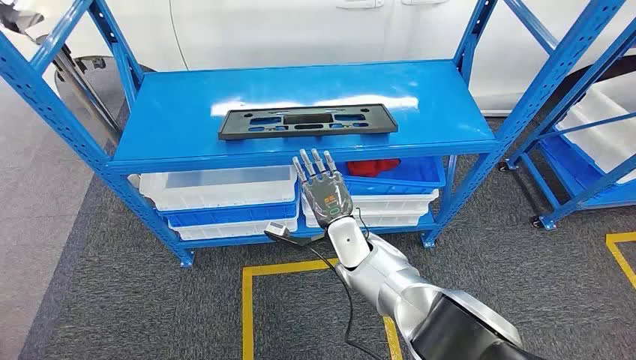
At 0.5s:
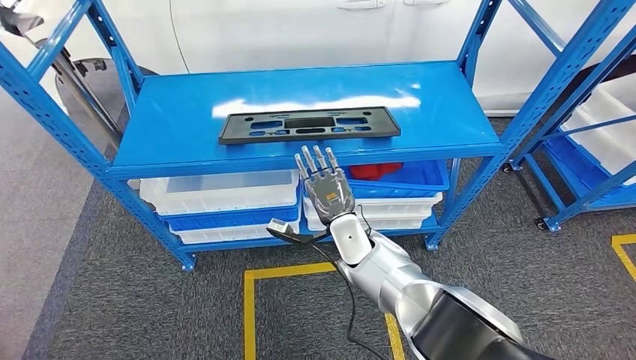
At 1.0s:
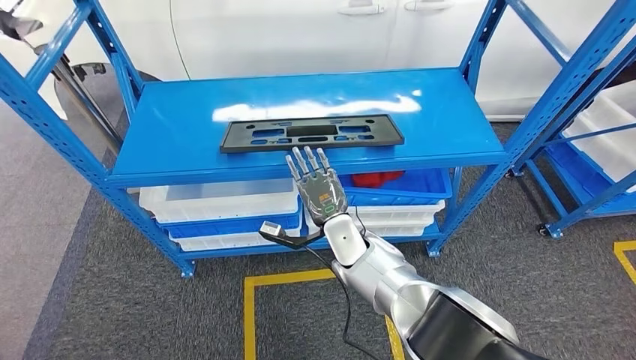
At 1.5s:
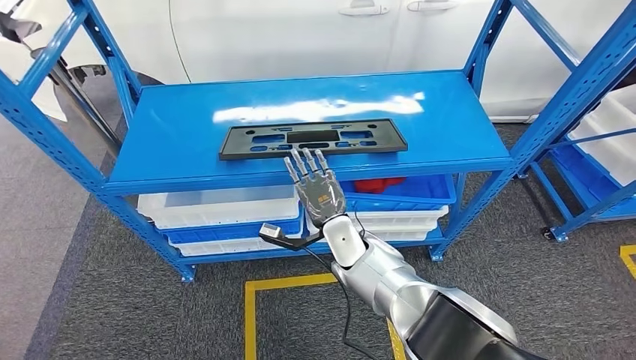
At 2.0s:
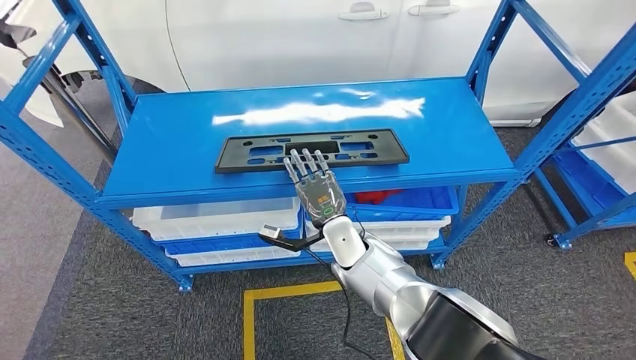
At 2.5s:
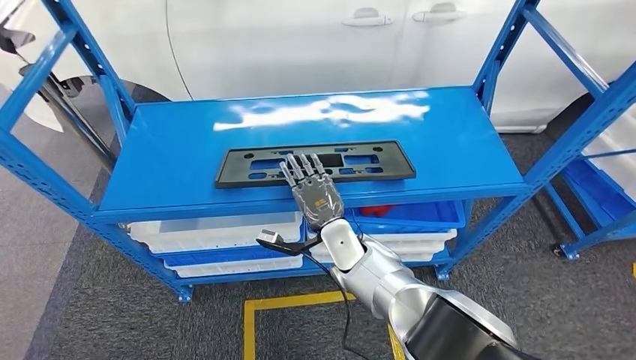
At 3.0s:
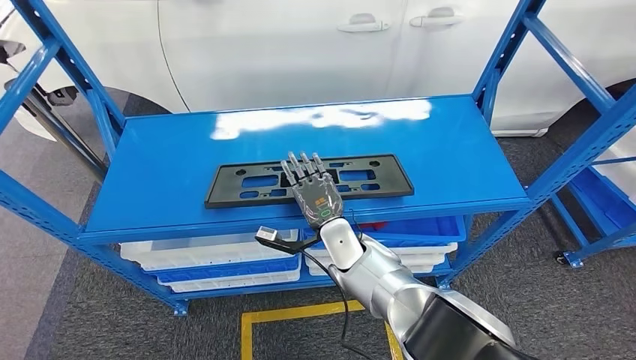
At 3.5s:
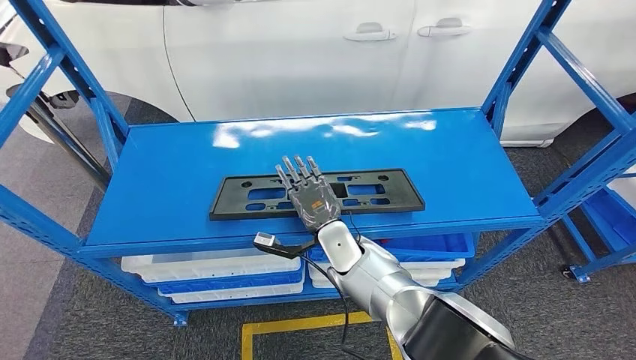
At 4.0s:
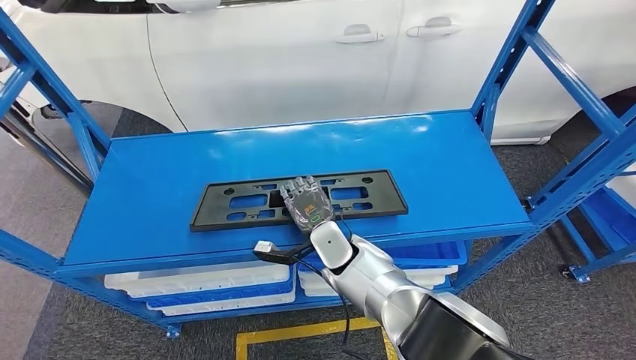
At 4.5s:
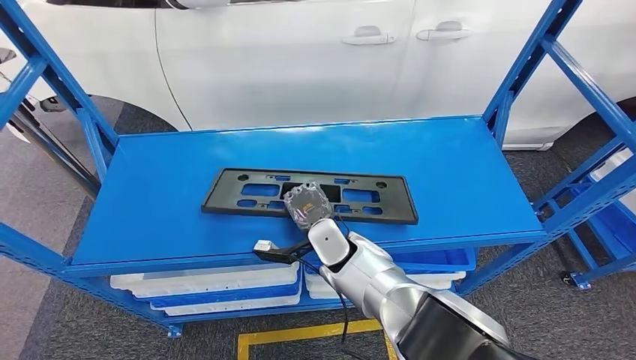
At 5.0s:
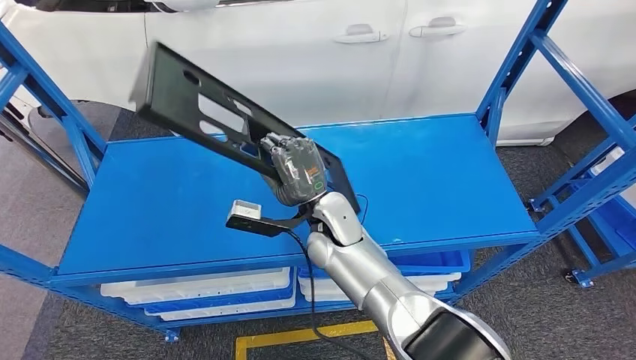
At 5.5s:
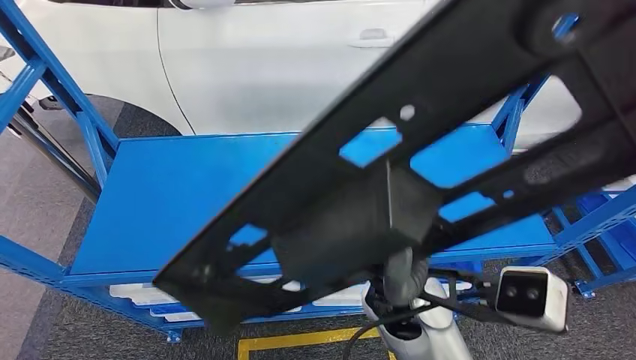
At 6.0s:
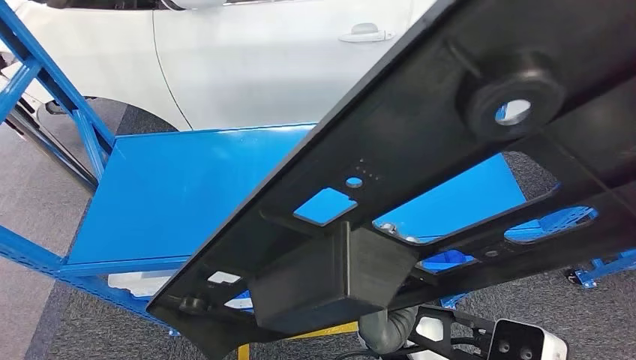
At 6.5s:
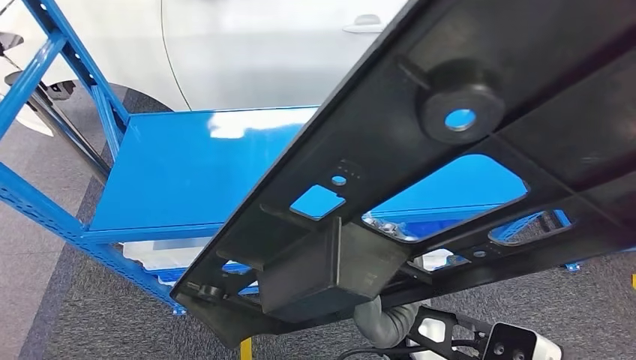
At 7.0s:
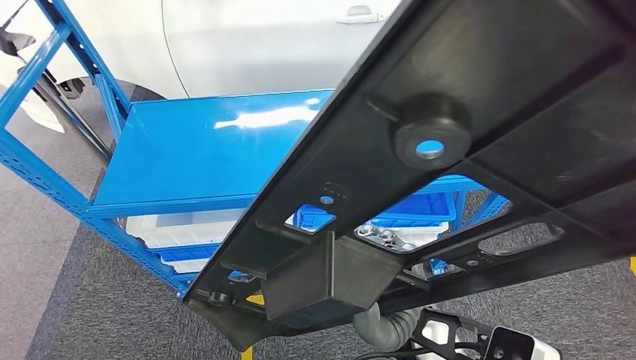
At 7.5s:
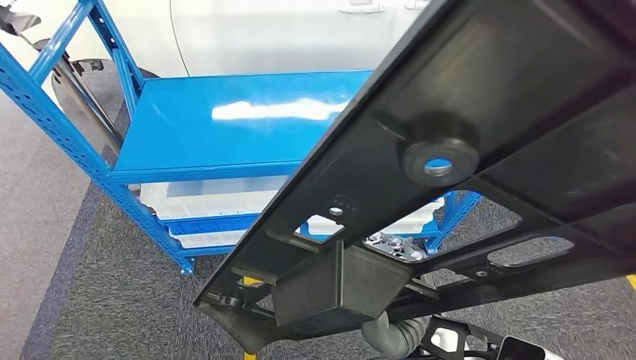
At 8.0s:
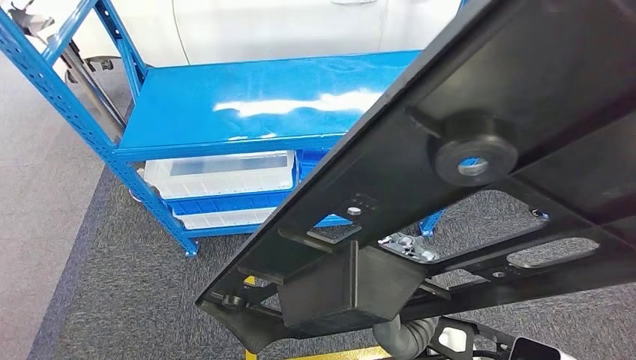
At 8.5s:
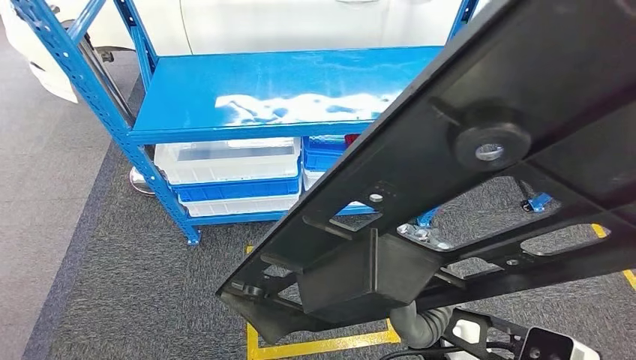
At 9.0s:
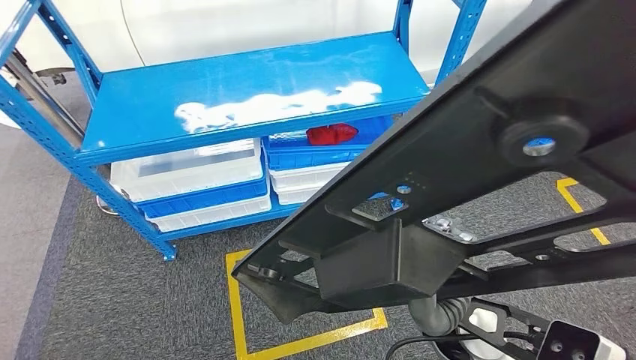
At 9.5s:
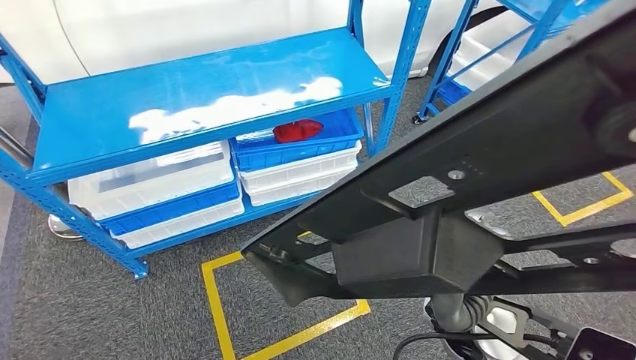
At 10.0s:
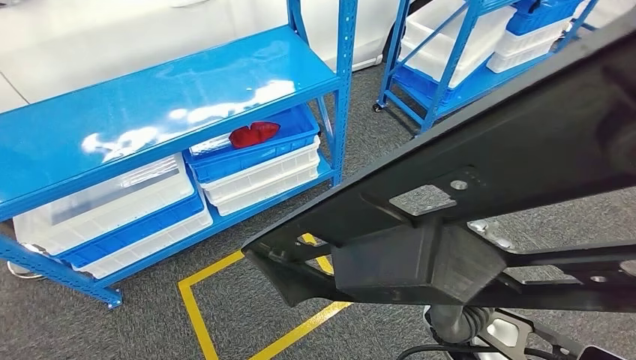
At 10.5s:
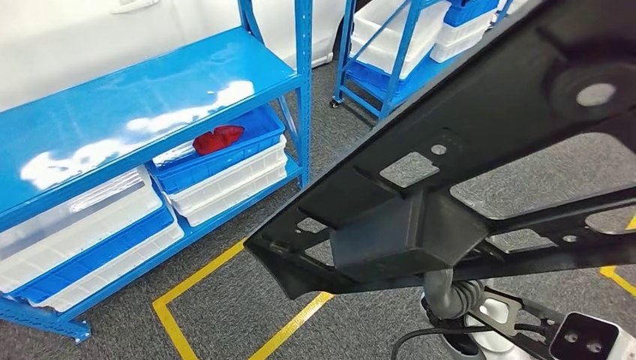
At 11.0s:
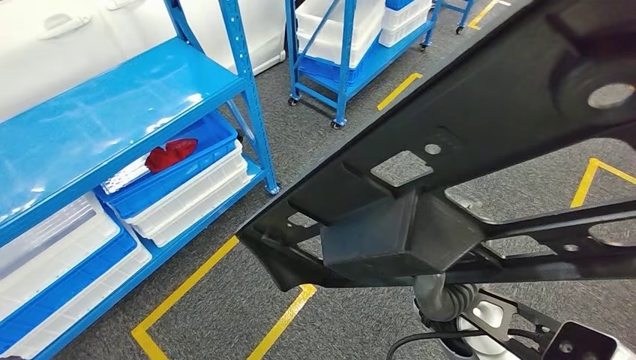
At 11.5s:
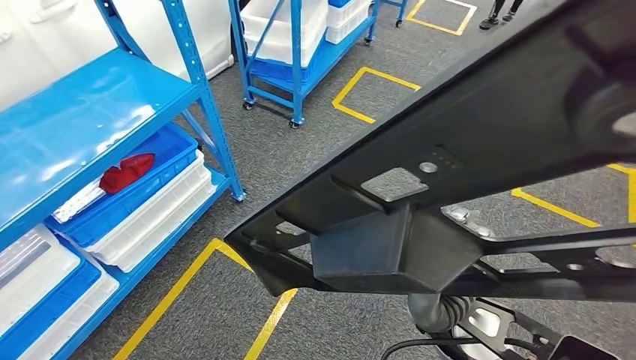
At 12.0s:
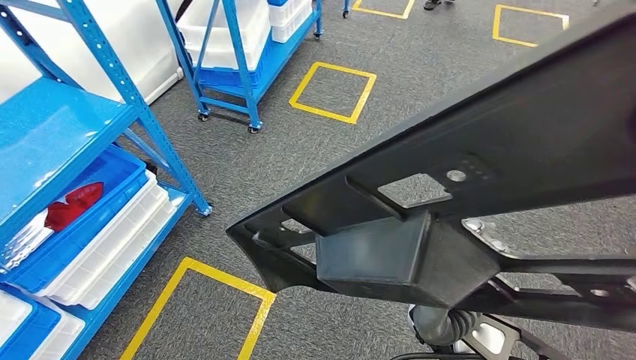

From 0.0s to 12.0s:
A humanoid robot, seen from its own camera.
Step, from 0.0s to 6.5s: Pick up the large material from the shelf.

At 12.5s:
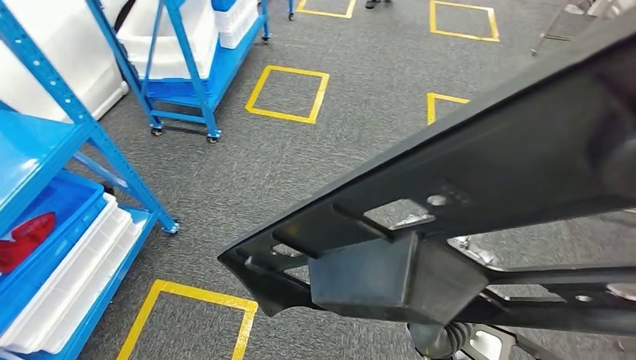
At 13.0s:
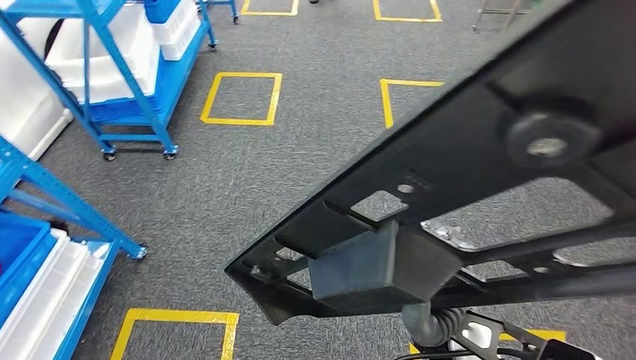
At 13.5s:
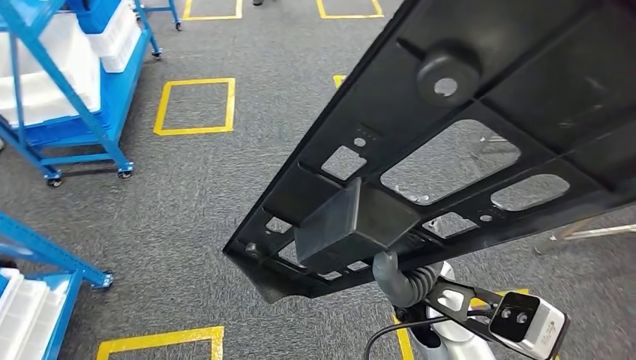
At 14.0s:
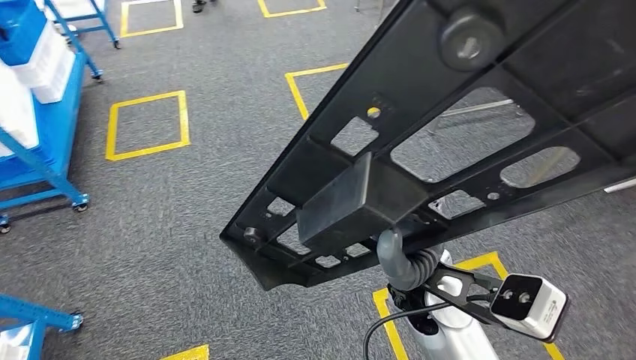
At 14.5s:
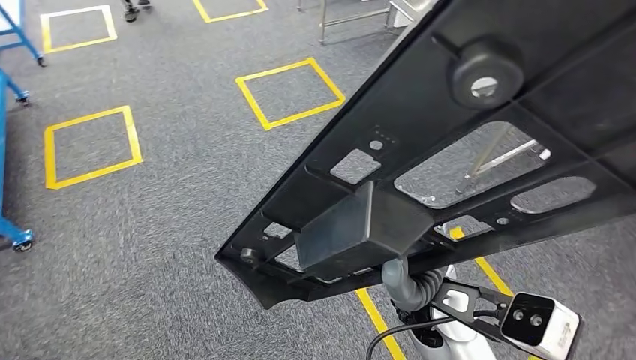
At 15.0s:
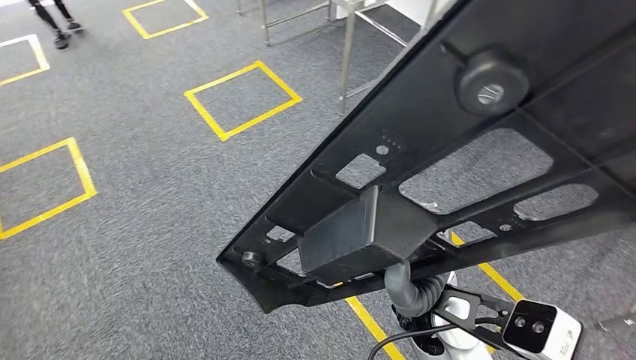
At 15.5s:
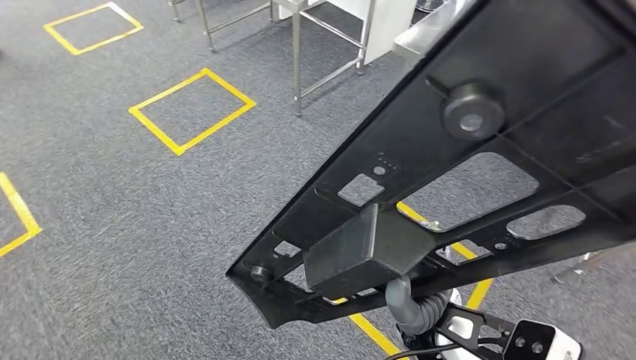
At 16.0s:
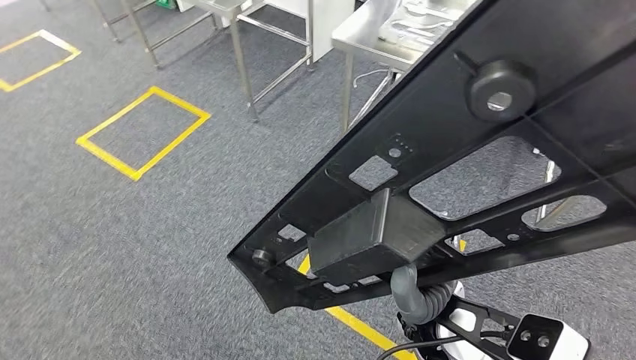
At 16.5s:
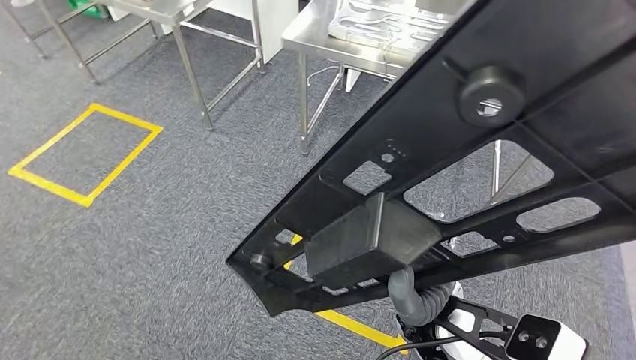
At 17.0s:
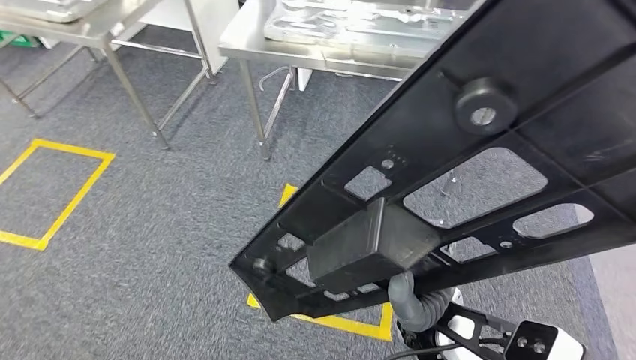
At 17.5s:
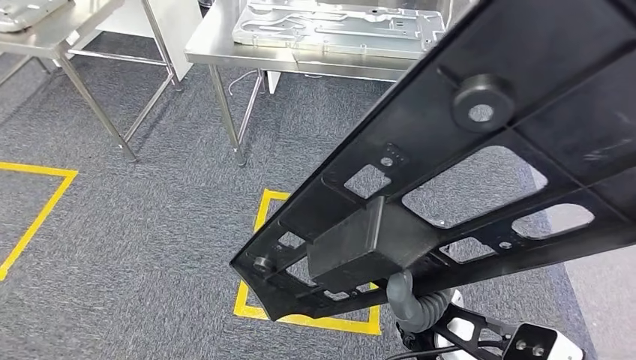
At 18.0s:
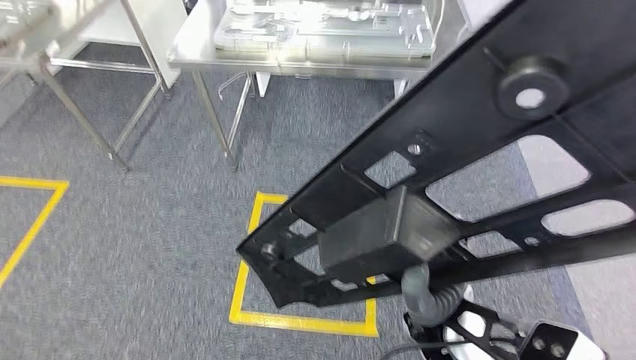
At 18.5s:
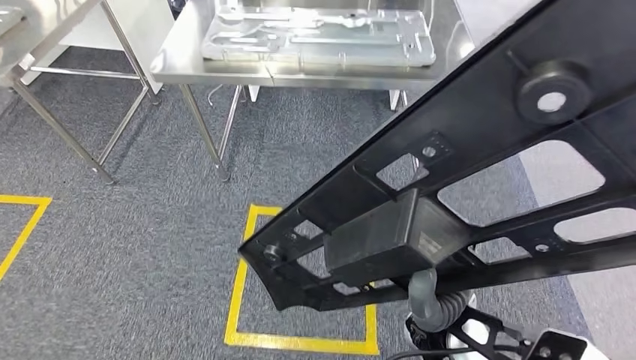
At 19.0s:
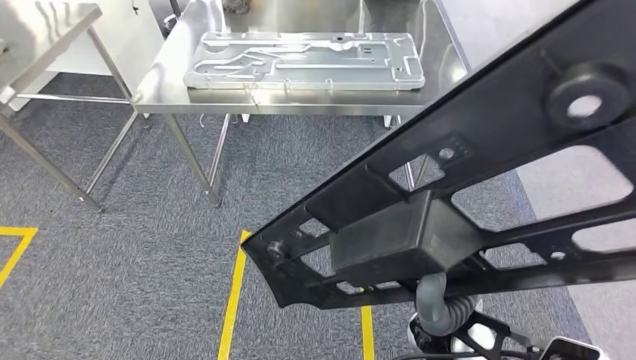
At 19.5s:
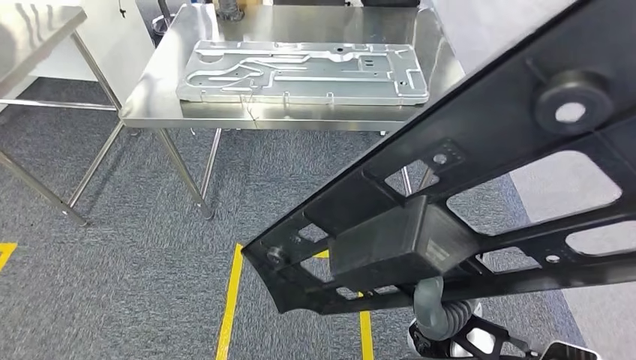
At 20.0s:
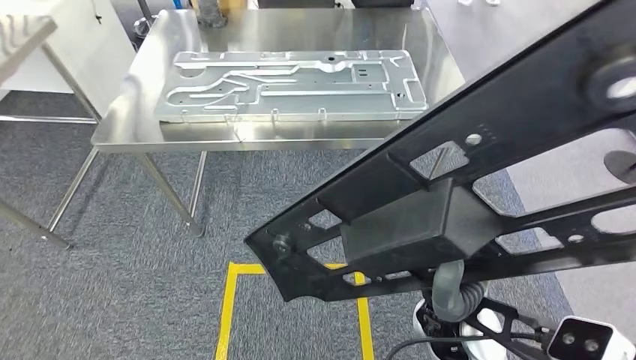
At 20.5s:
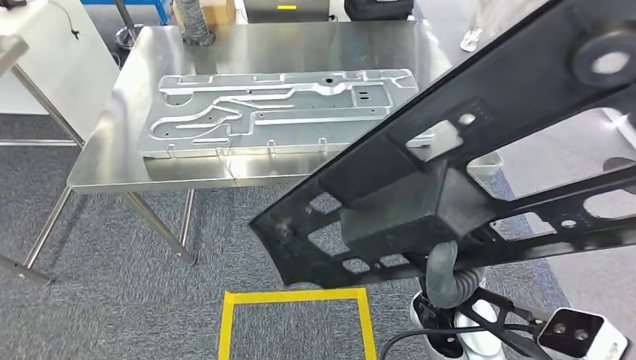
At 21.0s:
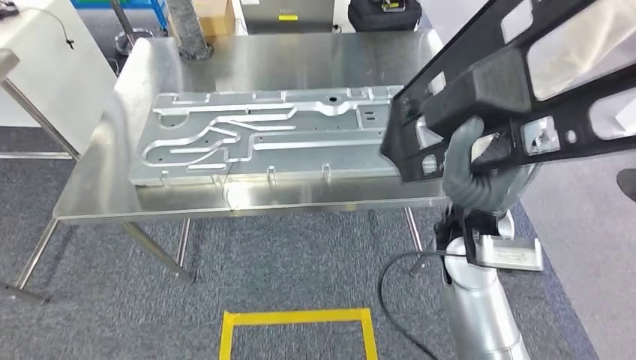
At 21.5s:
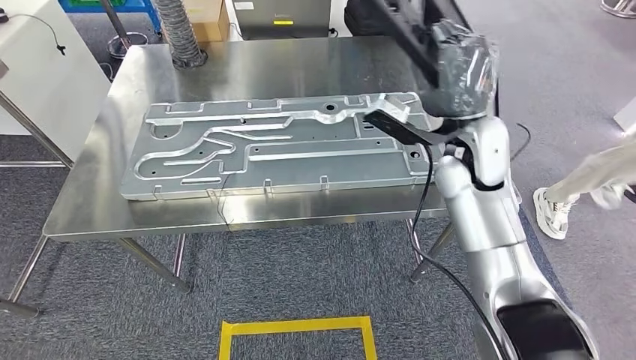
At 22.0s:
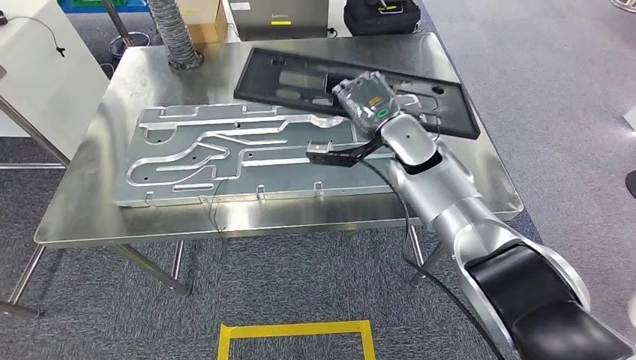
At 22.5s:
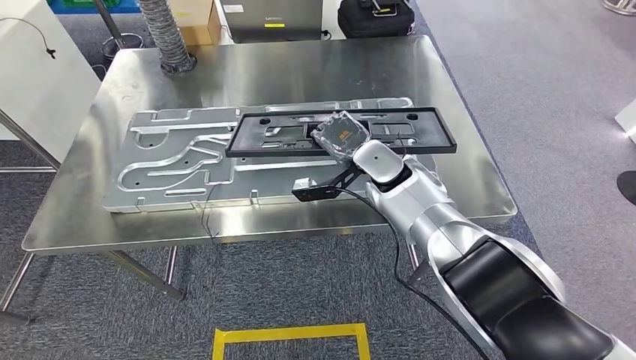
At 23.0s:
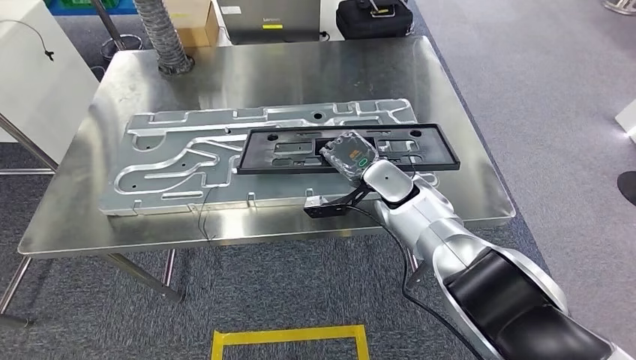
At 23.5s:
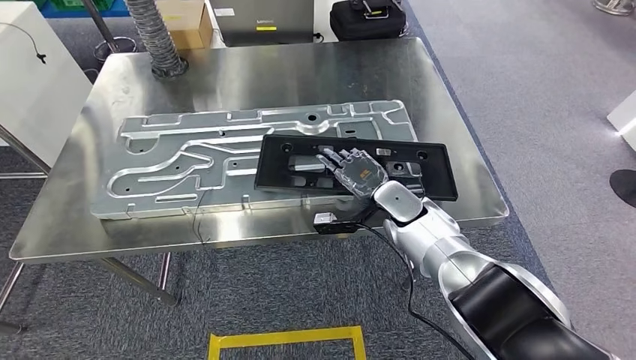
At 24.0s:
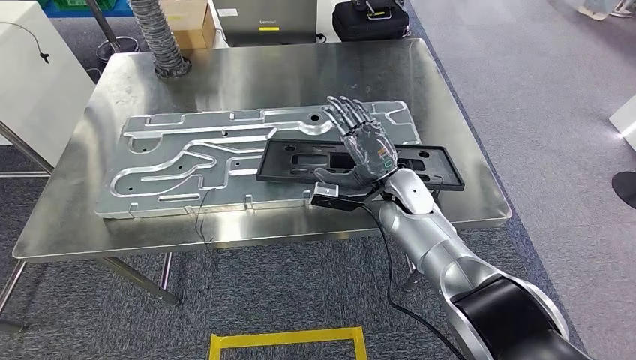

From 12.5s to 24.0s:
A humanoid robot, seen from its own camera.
Step, from 12.5s to 23.0s: Move the large material to the workbench.
